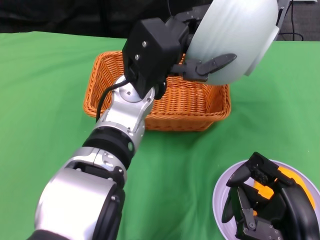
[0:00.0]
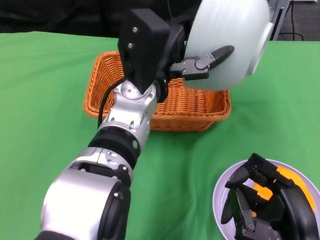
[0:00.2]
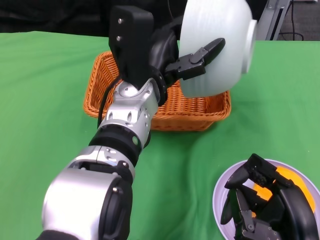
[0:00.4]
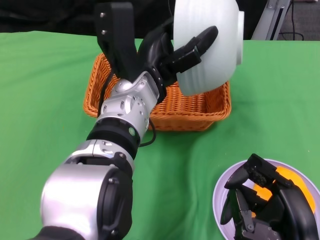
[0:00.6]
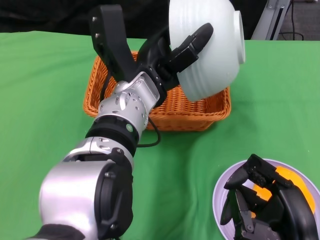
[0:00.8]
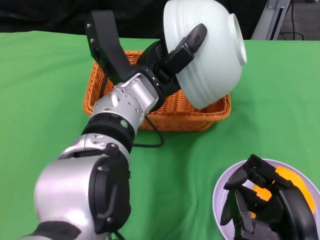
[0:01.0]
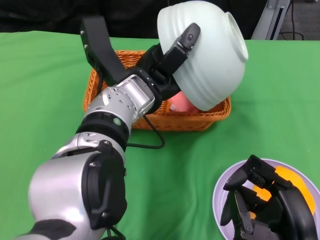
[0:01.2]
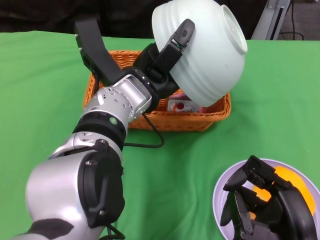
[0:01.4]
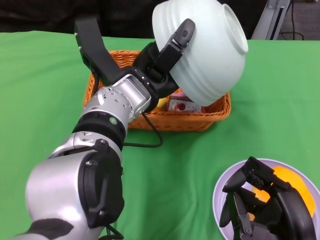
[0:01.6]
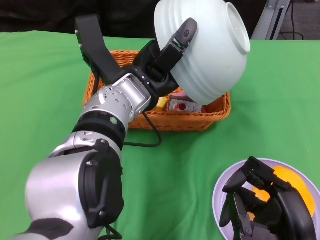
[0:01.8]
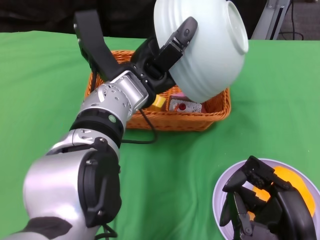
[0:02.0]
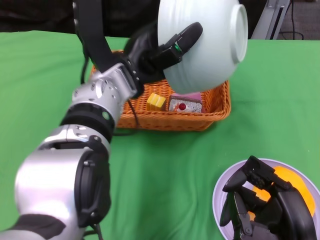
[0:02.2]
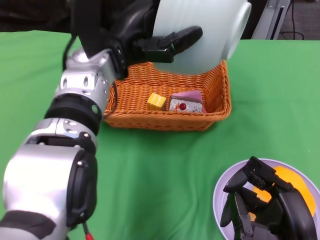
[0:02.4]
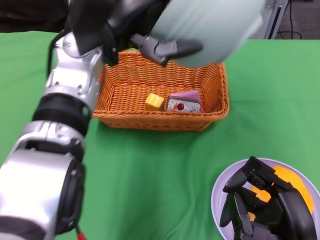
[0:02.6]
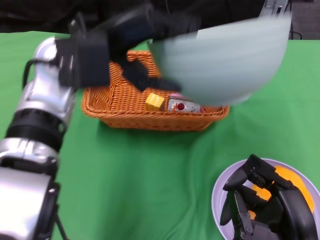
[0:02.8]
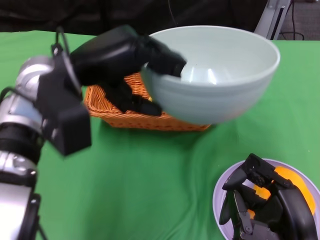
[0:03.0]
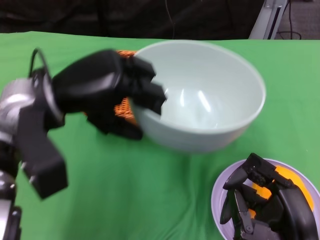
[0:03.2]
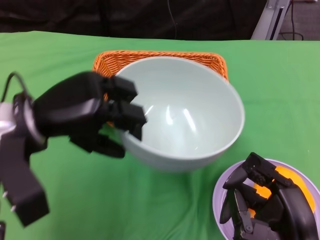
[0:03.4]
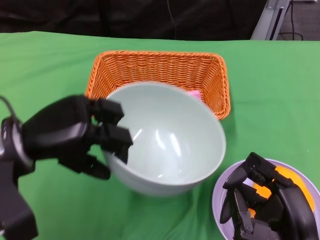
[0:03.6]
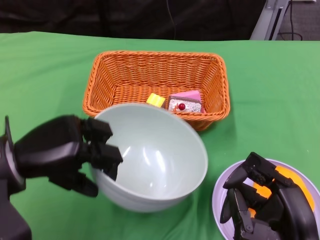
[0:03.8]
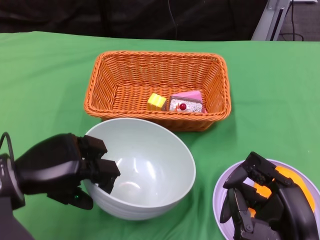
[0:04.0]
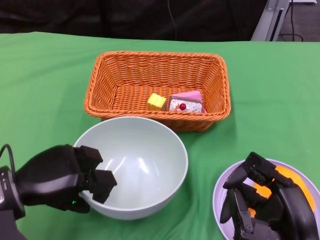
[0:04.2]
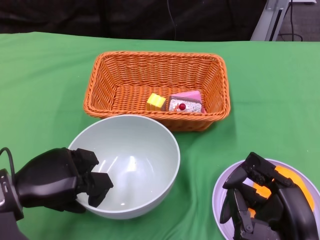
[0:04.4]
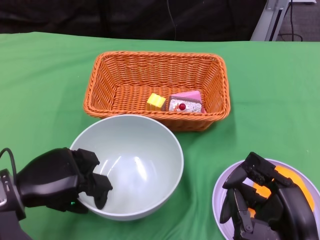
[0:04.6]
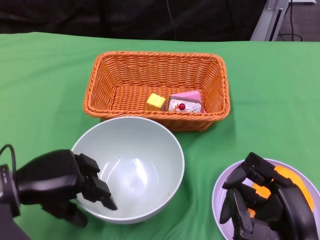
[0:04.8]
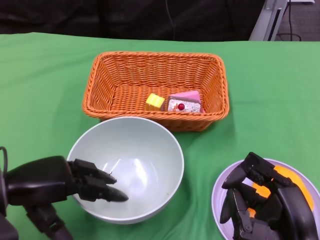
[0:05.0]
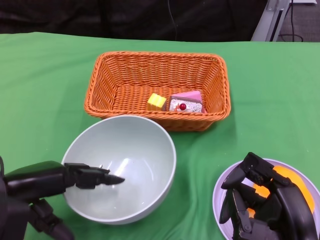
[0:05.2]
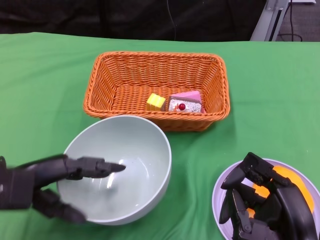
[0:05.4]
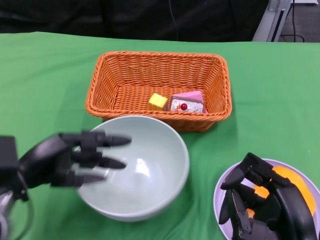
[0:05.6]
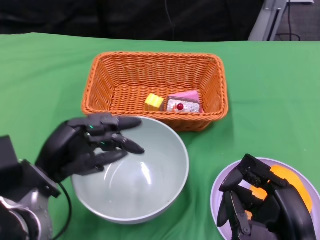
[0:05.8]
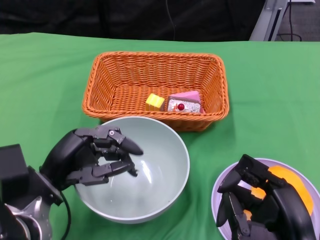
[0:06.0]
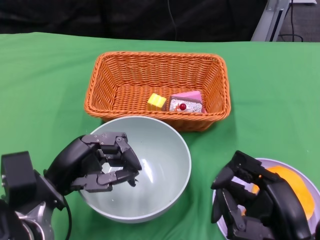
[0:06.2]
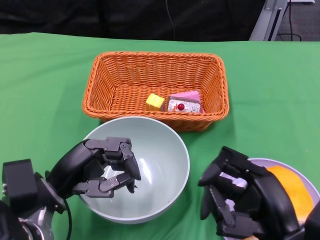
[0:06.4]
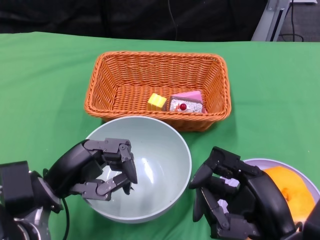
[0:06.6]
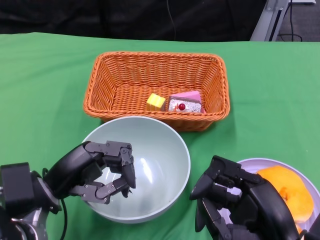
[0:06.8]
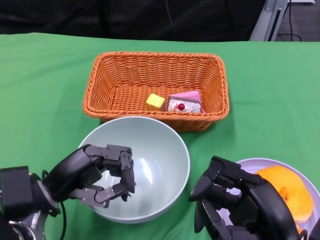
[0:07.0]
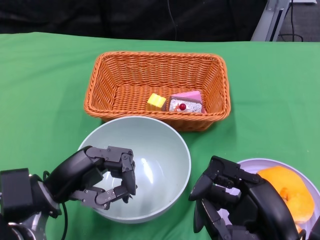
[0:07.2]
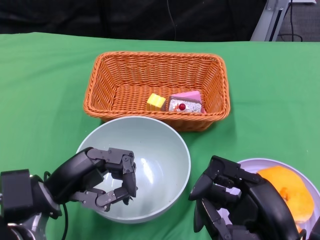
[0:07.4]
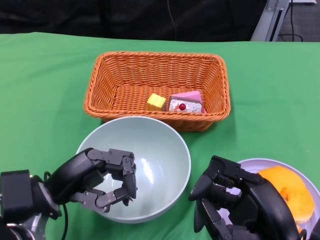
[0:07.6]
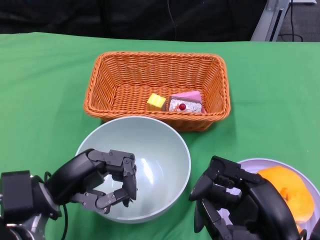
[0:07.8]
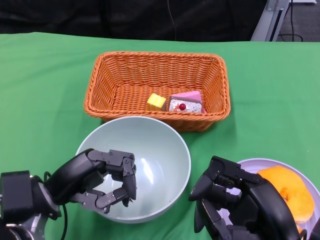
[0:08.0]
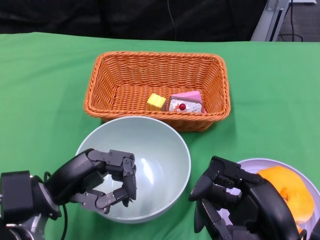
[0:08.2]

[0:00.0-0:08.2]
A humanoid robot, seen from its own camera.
Step, 0:00.0 to 0:02.2: Pour the cake into the basket with the left gripper.
Step, 0:02.4 to 0:04.8: Place the bowl on the table with the left gripper.
0:01.6 to 0:03.2: The left hand is displaced to the left by some 10 cm.
0:03.2 to 0:05.0: The left hand goes about 15 cm downward, to the left and backward.
0:05.0 to 0:06.6: The left hand is displaced to the right by approximately 5 cm.
0:06.6 to 0:08.2: The hands stay close to where they were, moving slightly.

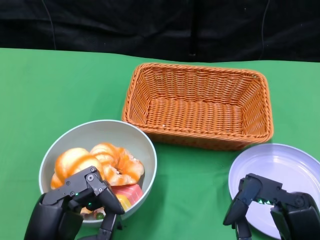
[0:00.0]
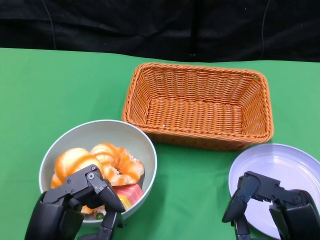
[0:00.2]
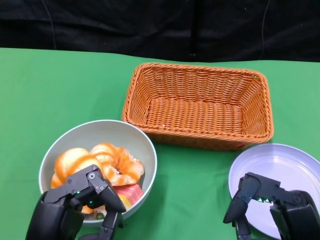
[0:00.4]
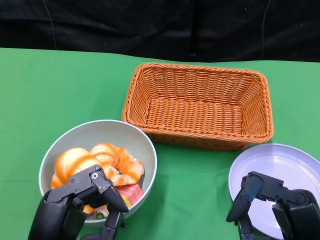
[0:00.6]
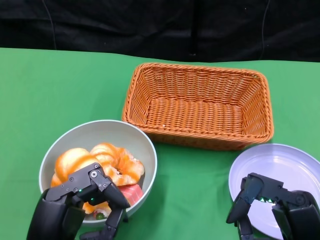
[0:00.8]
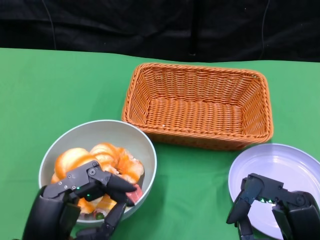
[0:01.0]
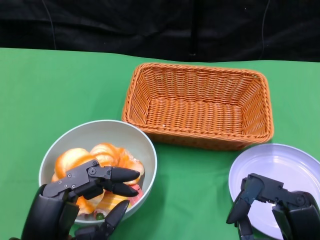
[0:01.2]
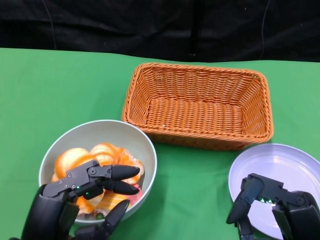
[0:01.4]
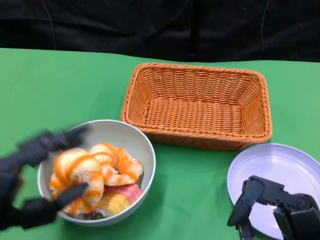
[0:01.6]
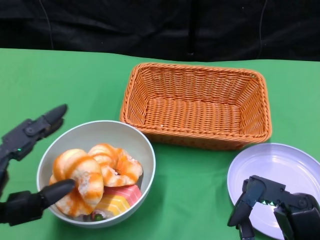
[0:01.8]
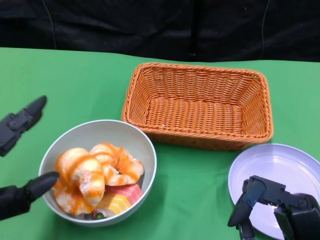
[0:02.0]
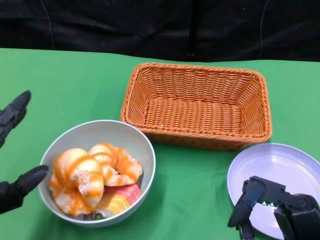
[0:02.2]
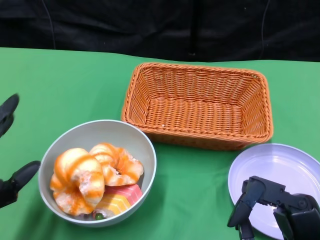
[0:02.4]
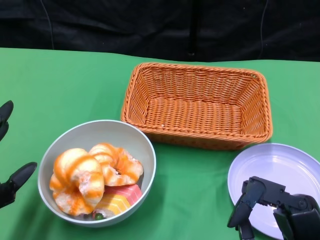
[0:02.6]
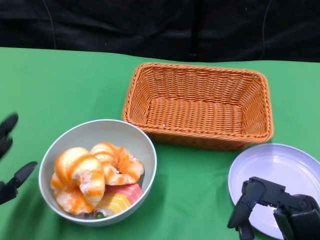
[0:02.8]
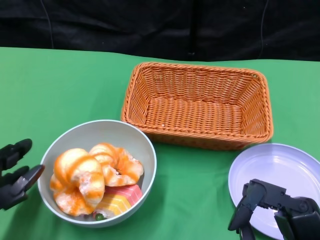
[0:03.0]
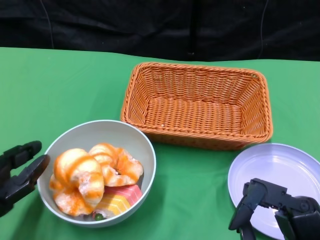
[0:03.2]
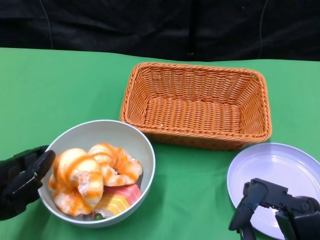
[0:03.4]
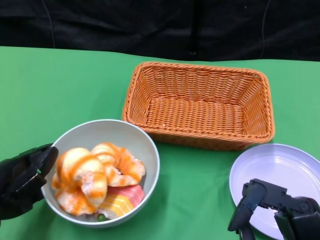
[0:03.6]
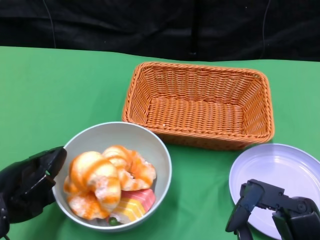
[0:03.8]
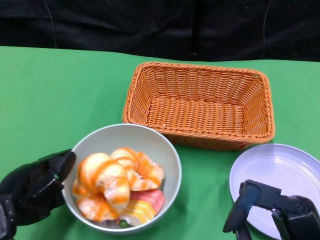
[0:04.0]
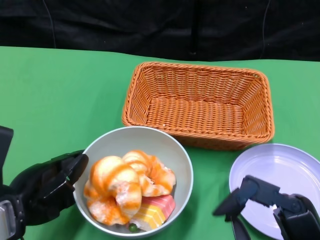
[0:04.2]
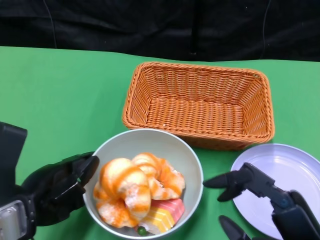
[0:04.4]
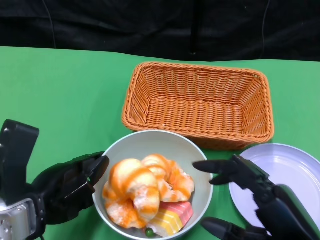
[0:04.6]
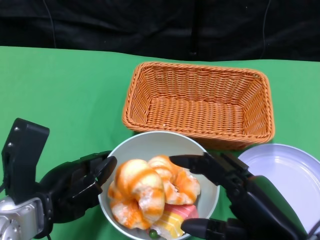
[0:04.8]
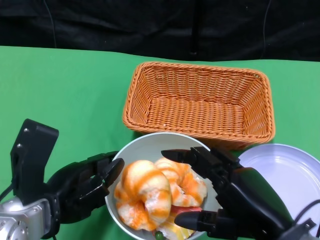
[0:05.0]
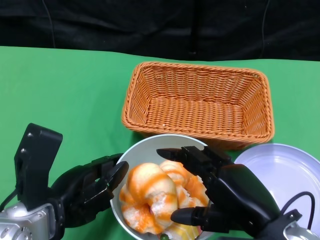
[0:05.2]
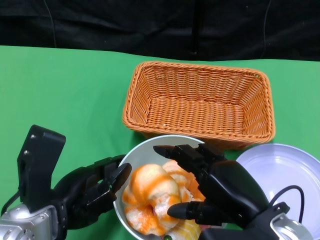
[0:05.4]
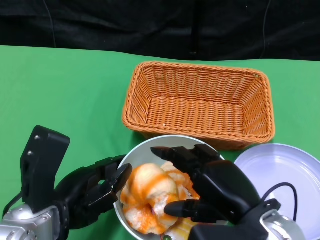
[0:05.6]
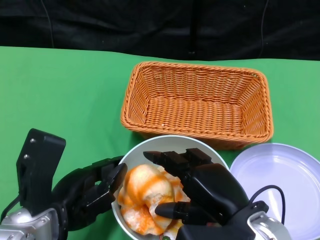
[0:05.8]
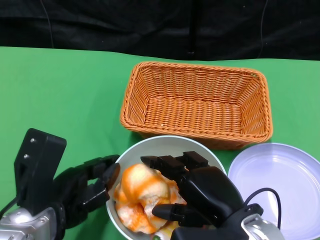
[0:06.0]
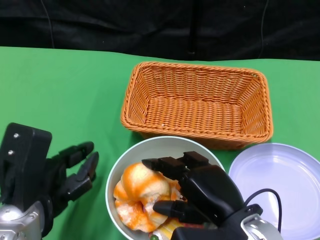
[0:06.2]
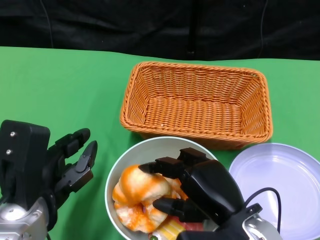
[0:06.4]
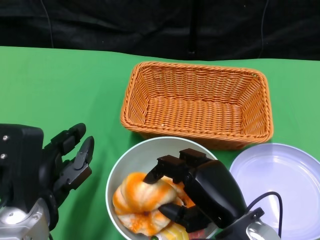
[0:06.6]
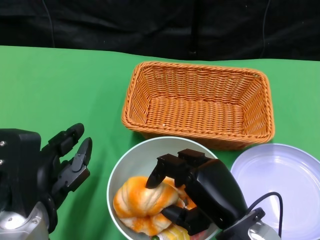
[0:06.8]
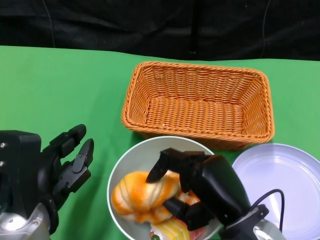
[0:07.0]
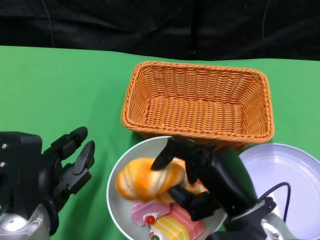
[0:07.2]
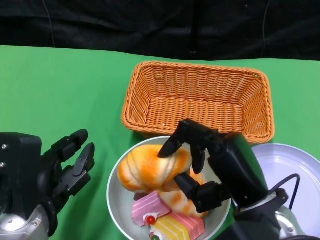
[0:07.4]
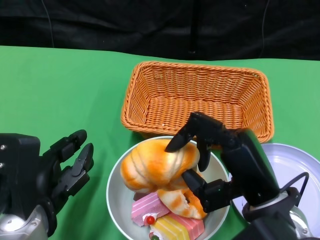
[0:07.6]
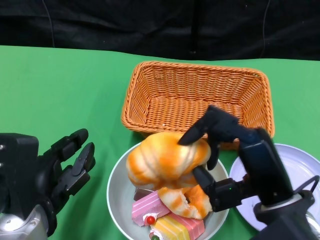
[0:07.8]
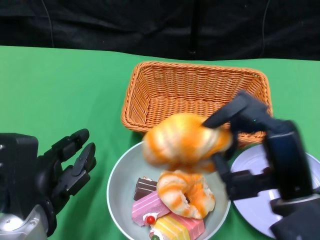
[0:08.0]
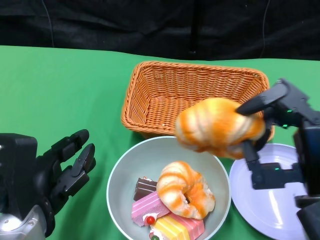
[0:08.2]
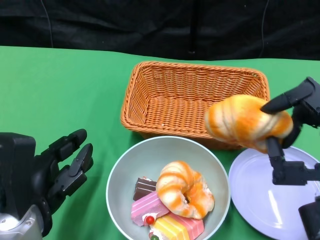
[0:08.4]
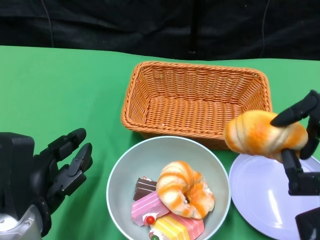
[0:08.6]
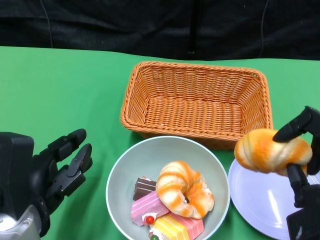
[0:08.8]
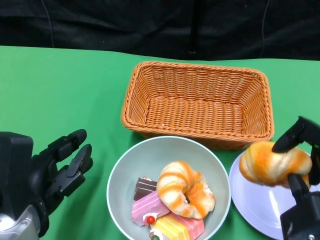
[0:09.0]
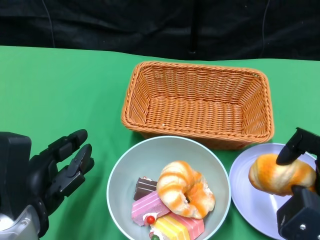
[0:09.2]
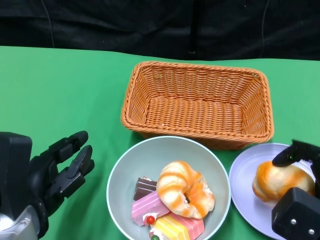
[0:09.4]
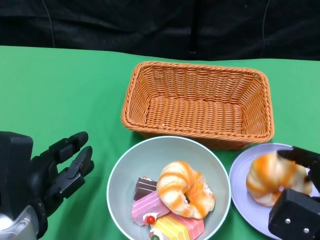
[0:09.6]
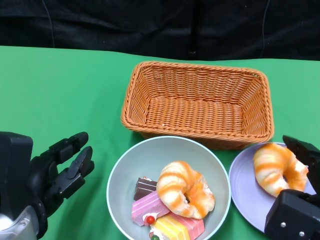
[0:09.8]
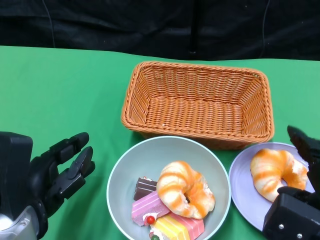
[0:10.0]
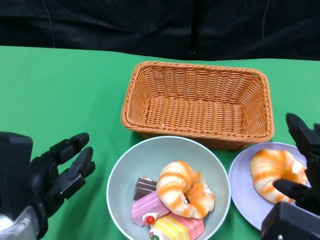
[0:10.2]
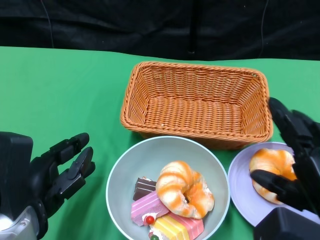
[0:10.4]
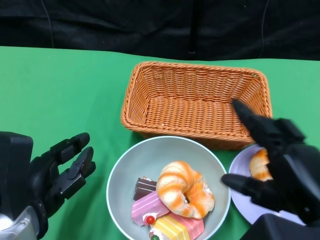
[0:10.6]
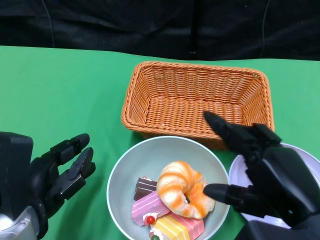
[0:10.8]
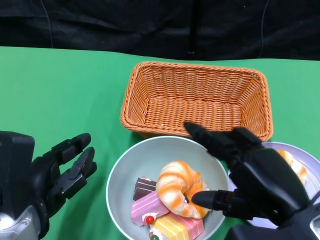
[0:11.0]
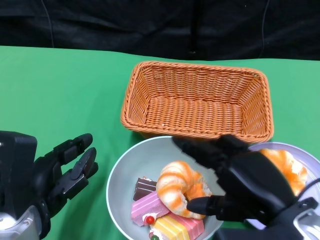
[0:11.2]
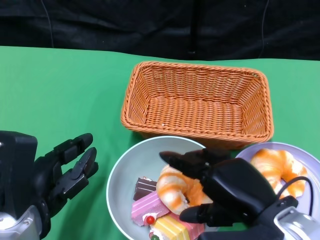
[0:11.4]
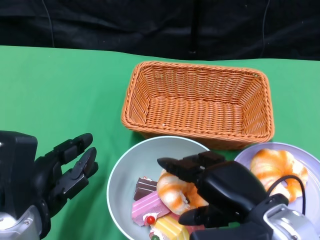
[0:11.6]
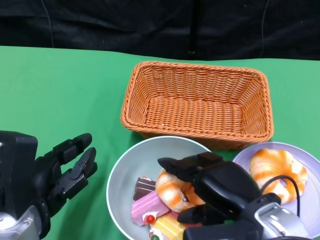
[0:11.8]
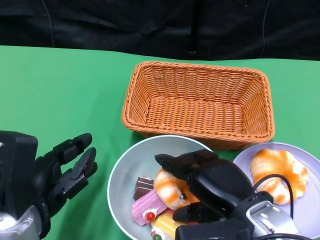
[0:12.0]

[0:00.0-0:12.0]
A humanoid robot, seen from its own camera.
Step, 0:00.0 to 0:04.6: Push the bowl to the center of the table using the left gripper.
0:01.6 to 0:03.0: The left hand goes some 10 cm to the left and forward.
0:03.0 to 0:04.4: The left hand heads to the right, covering some 5 cm.
0:04.4 to 0:06.0: The right hand moves to the left and forward, about 10 cm.
0:07.6 to 0:09.0: The right hand heads to the right, covering about 10 cm.
0:10.4 to 0:12.0: The right hand goes roughly 10 cm to the left and forward.

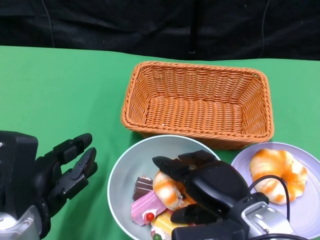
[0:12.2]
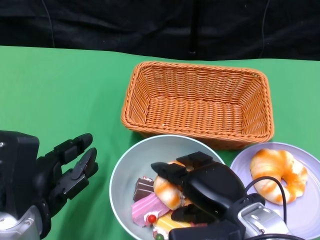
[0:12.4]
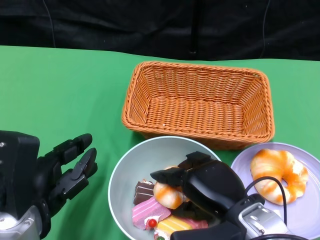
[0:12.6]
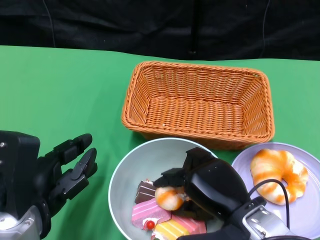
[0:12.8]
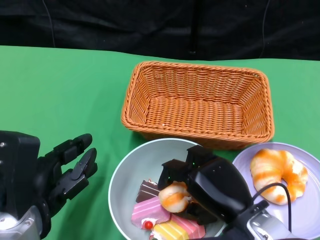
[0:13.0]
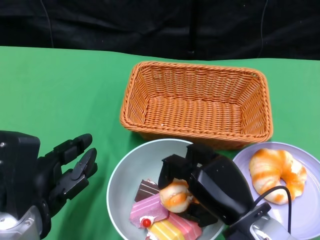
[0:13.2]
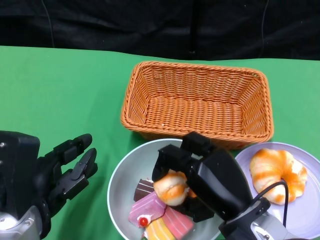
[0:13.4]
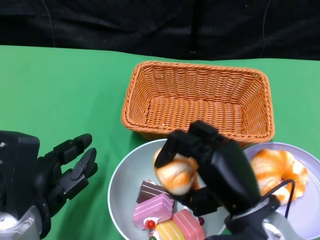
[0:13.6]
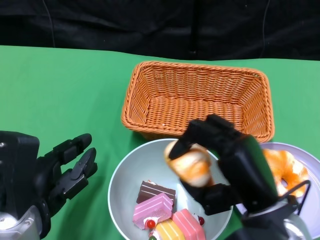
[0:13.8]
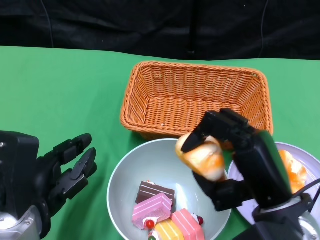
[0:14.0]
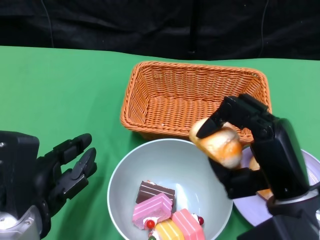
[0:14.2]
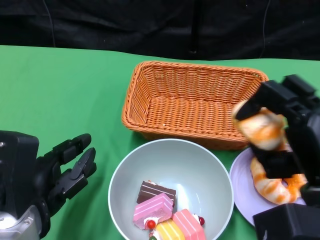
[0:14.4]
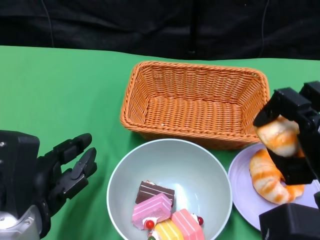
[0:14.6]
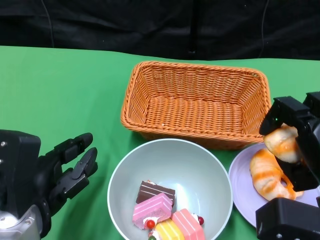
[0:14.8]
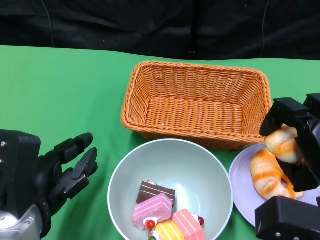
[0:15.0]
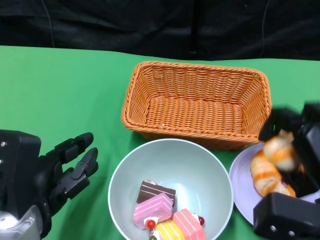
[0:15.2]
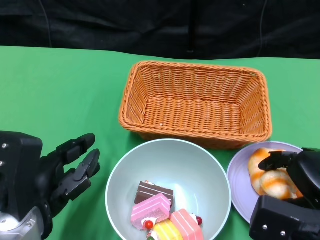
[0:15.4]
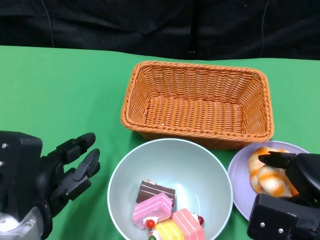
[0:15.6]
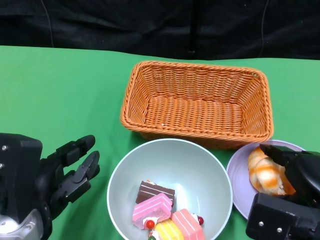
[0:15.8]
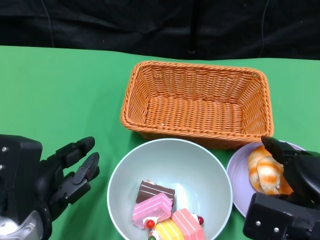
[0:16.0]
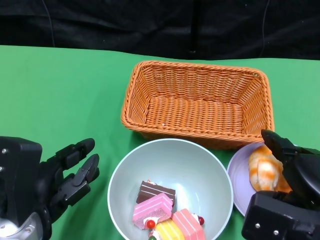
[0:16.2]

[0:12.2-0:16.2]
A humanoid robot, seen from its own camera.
0:13.6 to 0:14.8: The right hand is displaced to the right by about 10 cm.
